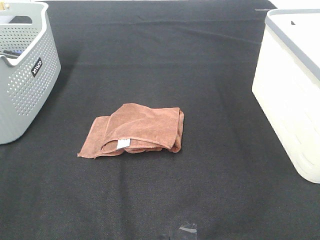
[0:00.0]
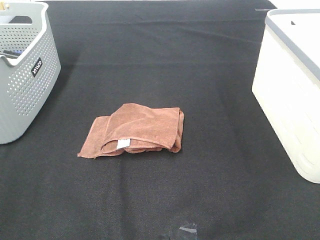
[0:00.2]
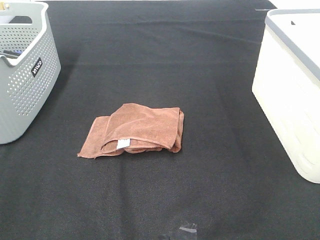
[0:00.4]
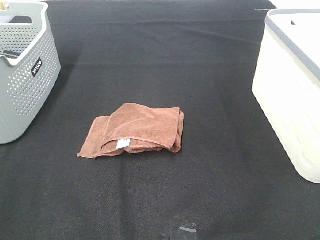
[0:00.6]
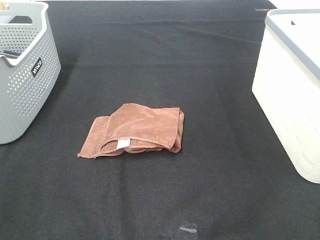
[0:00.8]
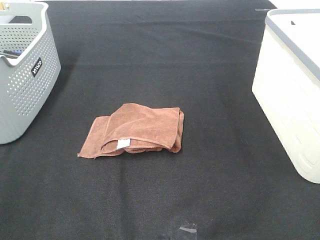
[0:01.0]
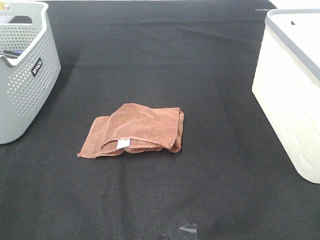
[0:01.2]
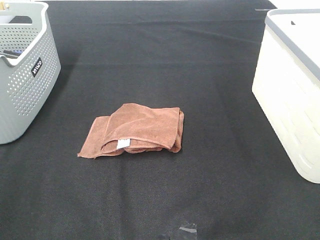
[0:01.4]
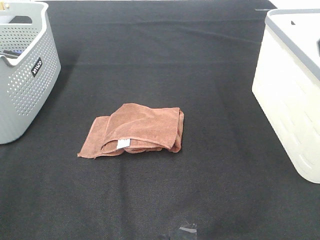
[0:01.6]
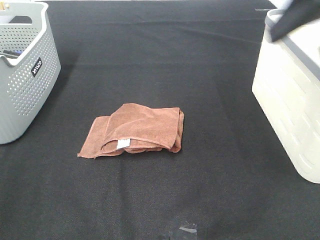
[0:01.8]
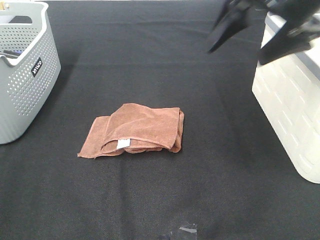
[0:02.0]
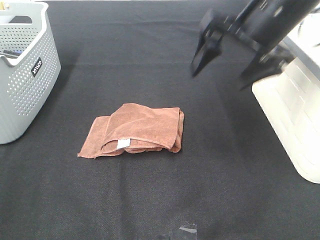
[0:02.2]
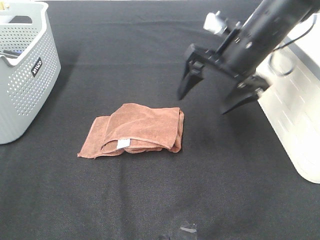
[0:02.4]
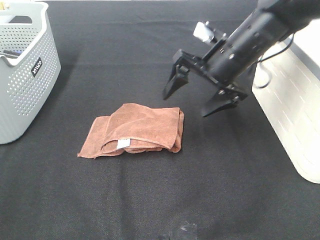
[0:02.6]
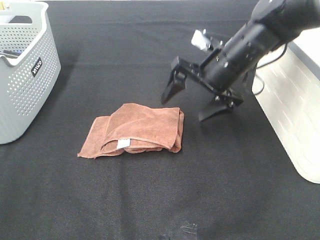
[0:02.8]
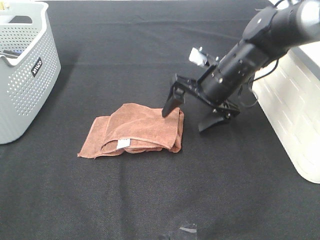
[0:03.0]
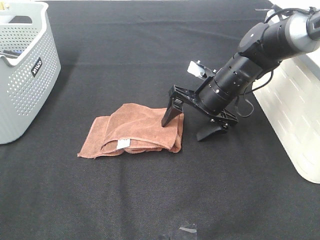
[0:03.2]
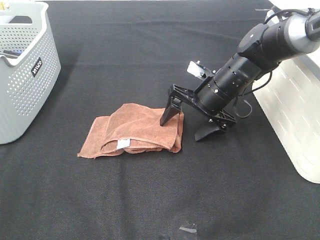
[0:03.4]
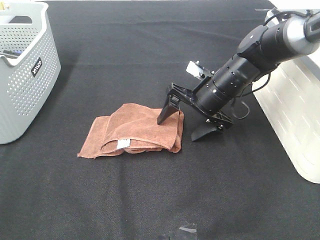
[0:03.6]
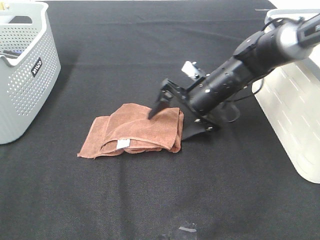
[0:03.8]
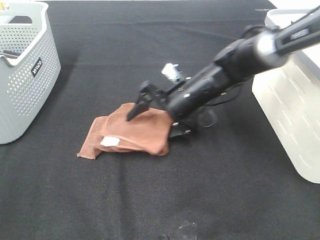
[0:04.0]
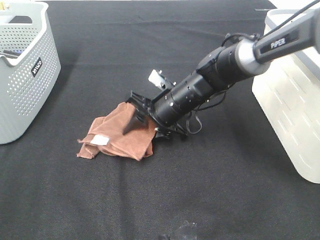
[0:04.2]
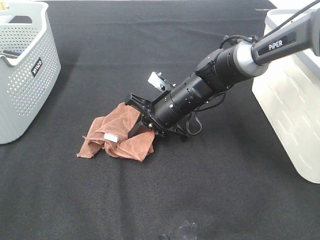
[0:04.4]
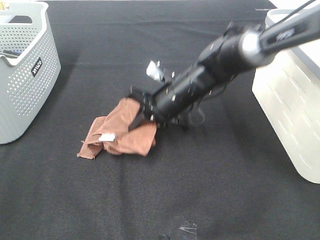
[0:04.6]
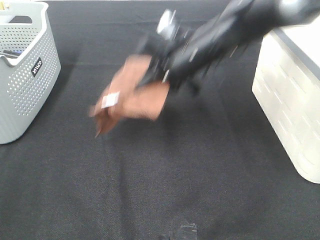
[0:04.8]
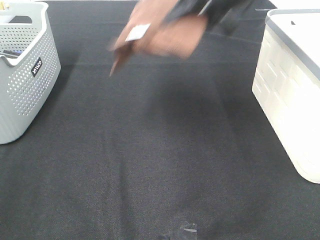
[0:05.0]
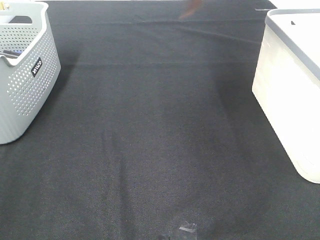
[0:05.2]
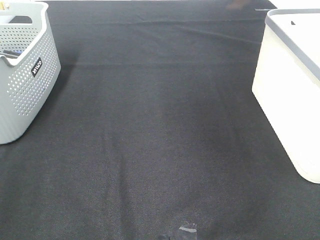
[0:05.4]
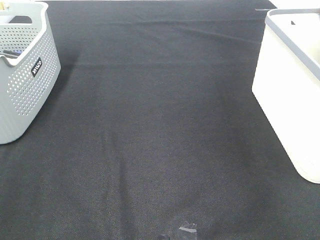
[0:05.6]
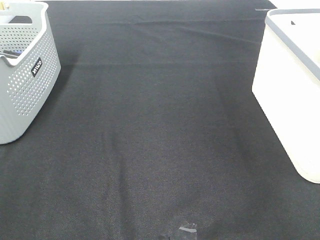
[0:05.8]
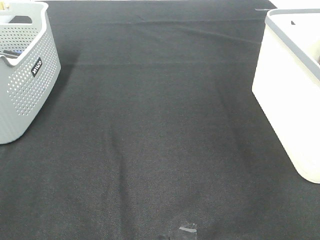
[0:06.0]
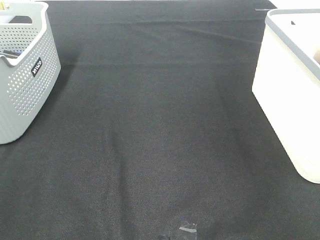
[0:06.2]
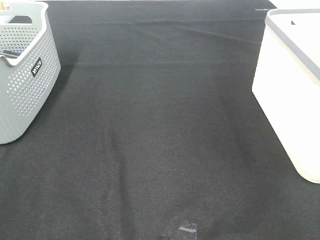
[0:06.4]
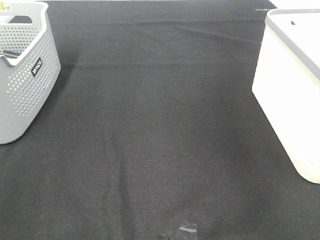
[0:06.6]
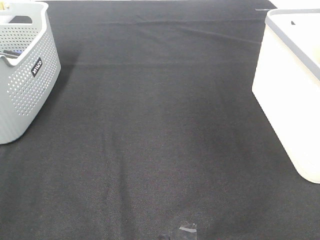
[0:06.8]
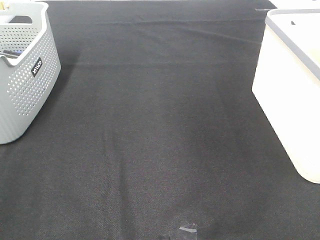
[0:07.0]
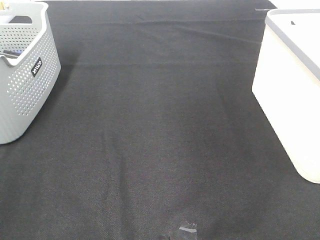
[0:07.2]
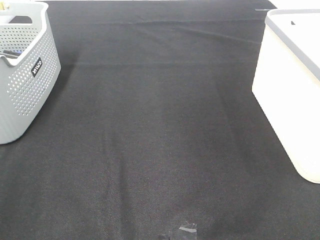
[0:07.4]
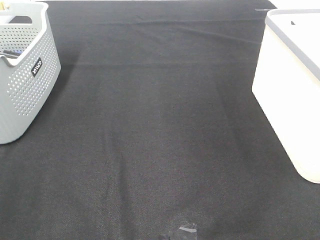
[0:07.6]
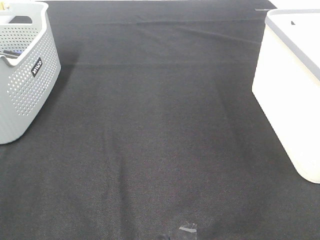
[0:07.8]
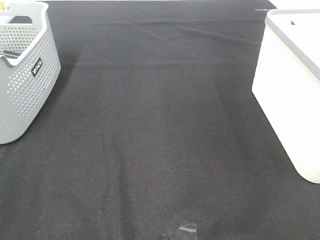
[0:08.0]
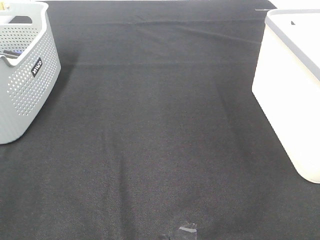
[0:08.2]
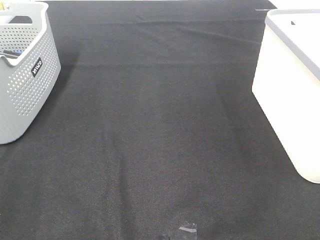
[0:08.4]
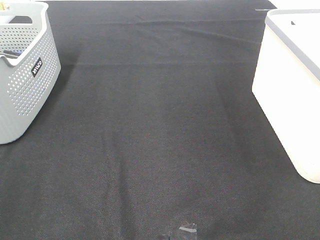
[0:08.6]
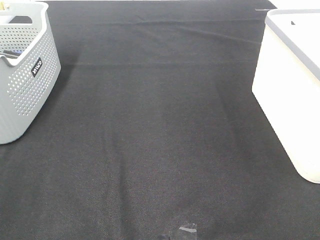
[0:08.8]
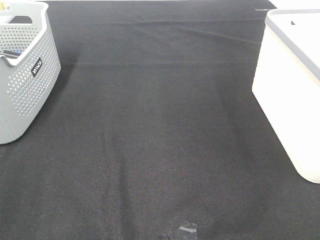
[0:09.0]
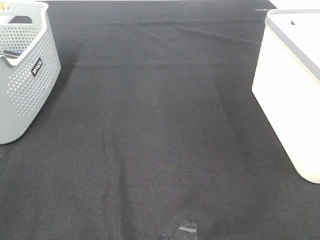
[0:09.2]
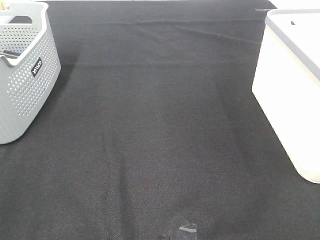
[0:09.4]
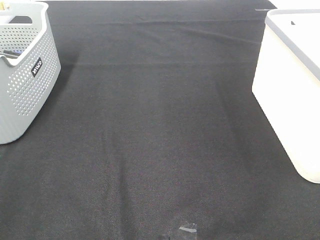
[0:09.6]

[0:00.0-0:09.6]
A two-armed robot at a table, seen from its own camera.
Step, 0:00.0 to 0:04.4: Right hand: grab the folded brown towel.
Step, 0:04.6 to 0:06.6: Right hand: place the brown towel in right basket.
0:01.6 to 0:03.2: The right gripper goes about 35 cm downward, forward and to the left.
0:03.2 to 0:04.8: The right gripper shifts roughly 10 cm upward, and closes up.
0:04.8 to 0:06.4: The right gripper travels to the right by some 35 cm, and opens.

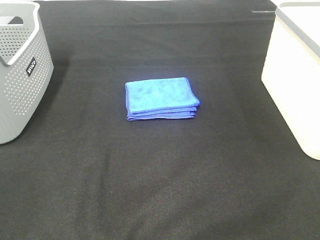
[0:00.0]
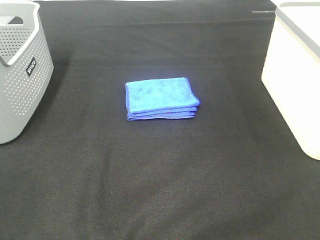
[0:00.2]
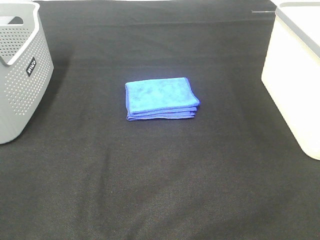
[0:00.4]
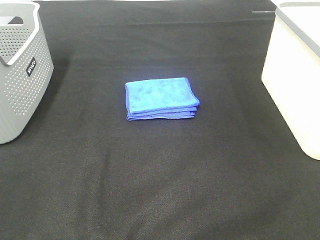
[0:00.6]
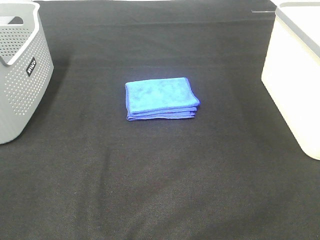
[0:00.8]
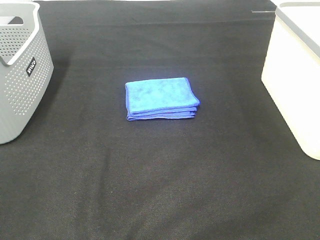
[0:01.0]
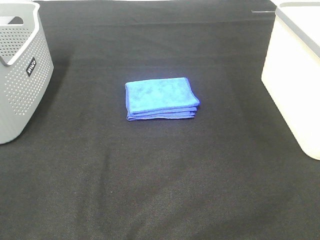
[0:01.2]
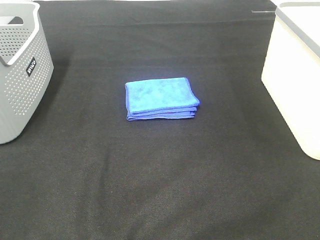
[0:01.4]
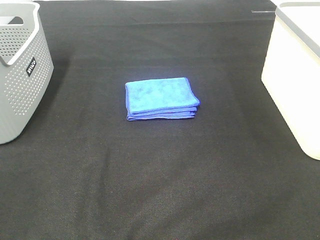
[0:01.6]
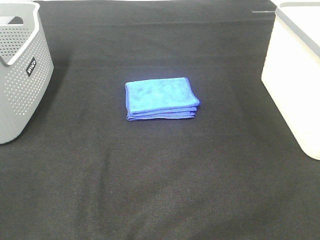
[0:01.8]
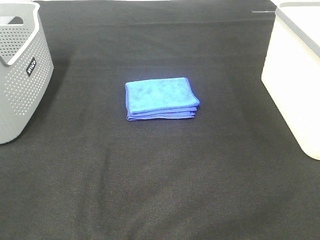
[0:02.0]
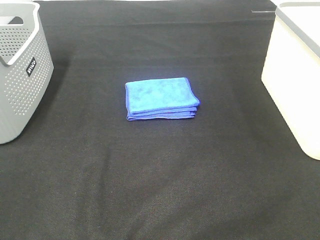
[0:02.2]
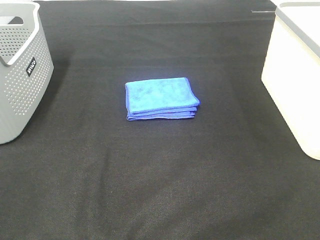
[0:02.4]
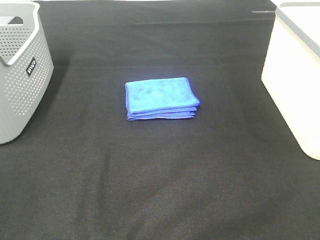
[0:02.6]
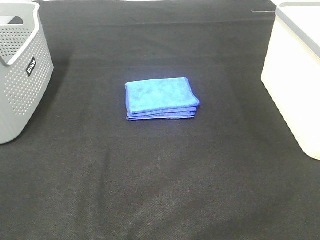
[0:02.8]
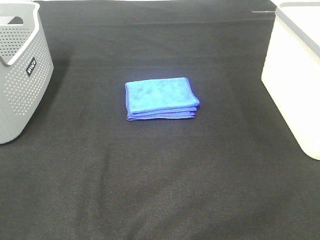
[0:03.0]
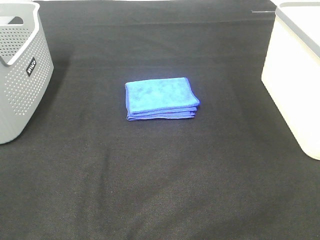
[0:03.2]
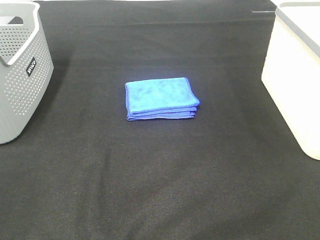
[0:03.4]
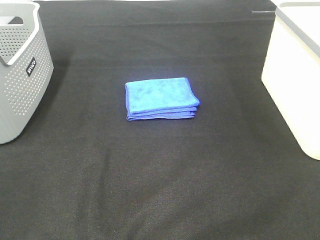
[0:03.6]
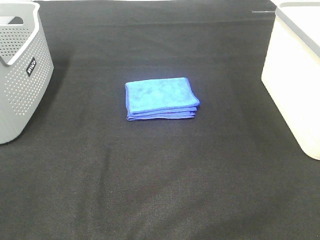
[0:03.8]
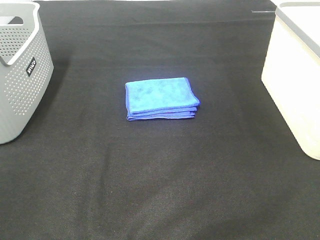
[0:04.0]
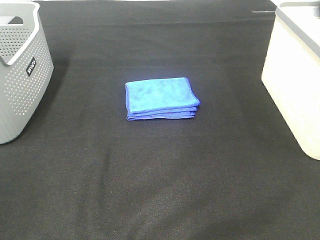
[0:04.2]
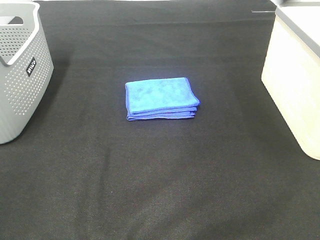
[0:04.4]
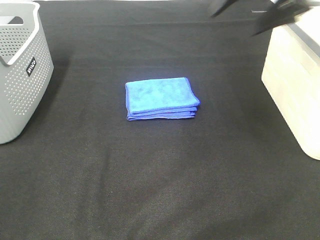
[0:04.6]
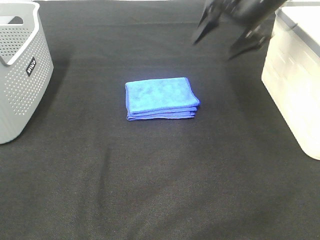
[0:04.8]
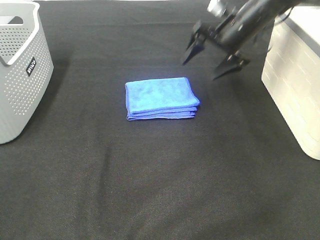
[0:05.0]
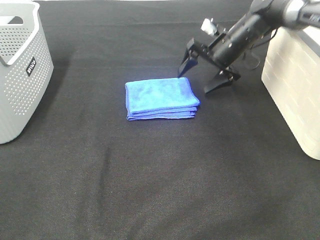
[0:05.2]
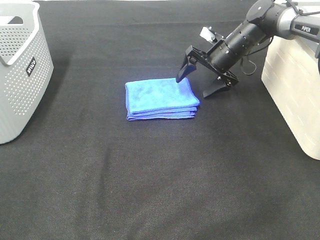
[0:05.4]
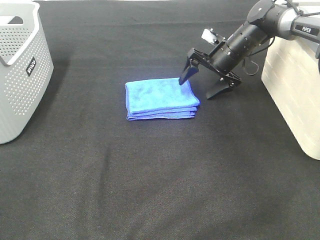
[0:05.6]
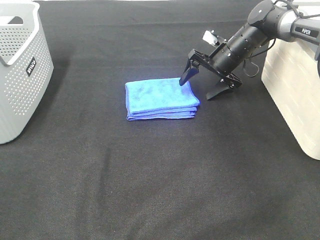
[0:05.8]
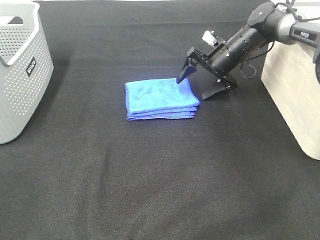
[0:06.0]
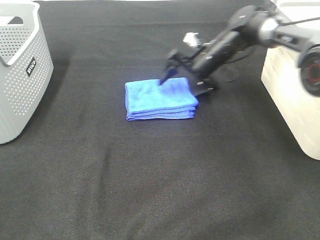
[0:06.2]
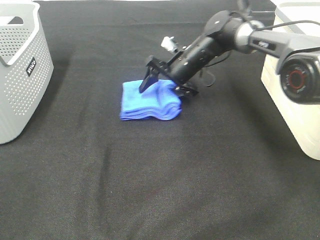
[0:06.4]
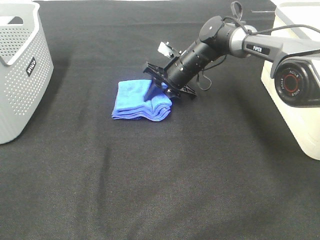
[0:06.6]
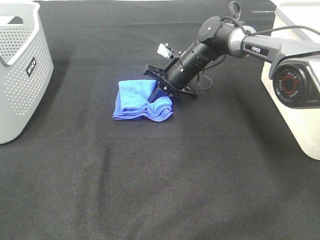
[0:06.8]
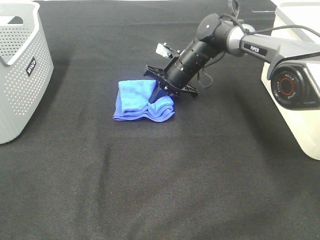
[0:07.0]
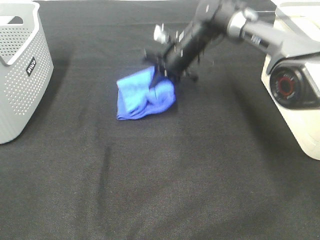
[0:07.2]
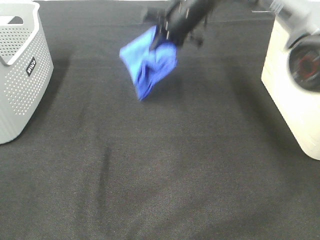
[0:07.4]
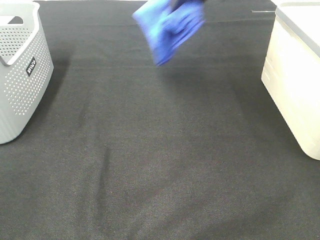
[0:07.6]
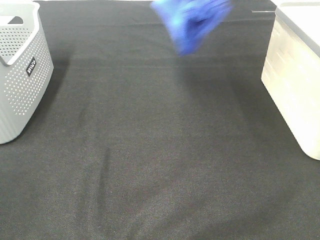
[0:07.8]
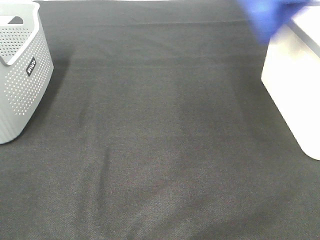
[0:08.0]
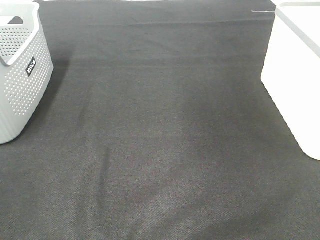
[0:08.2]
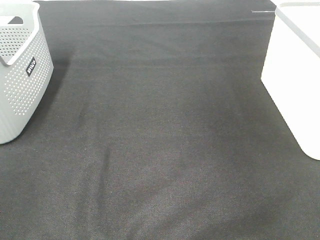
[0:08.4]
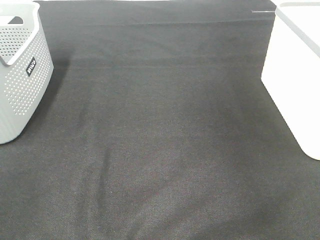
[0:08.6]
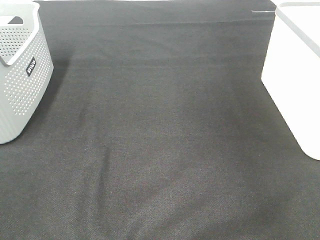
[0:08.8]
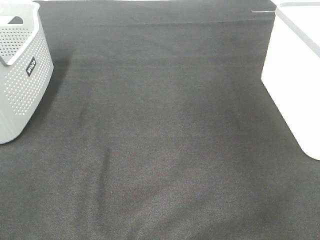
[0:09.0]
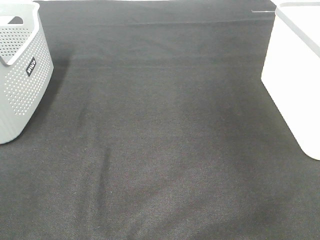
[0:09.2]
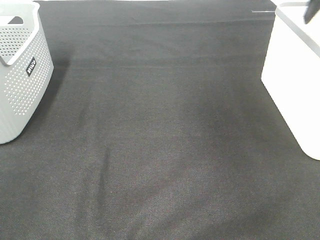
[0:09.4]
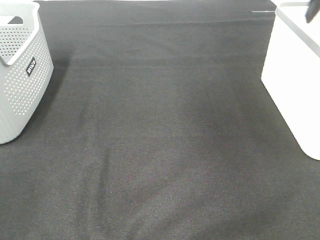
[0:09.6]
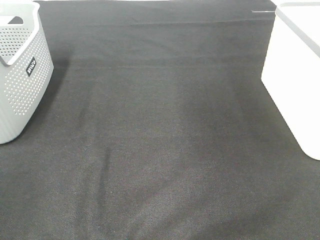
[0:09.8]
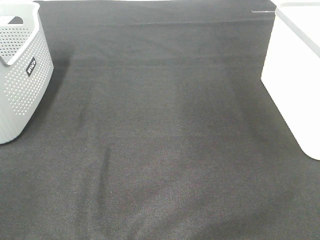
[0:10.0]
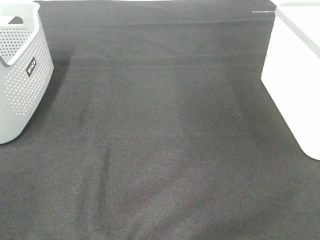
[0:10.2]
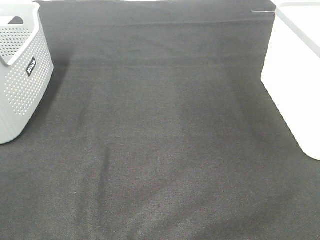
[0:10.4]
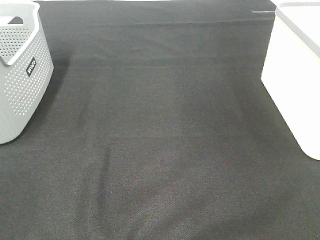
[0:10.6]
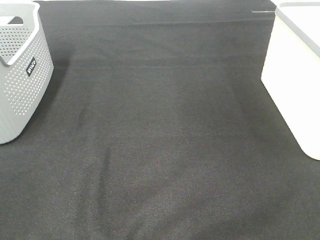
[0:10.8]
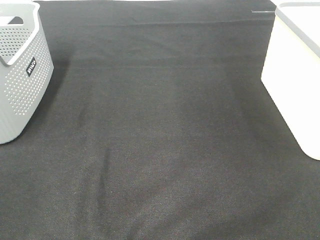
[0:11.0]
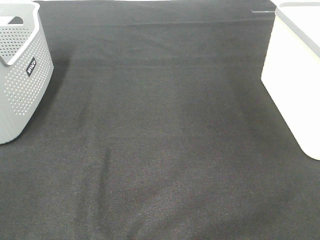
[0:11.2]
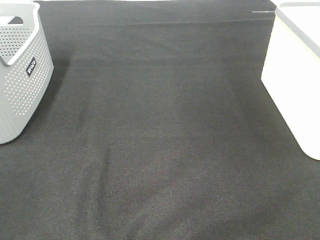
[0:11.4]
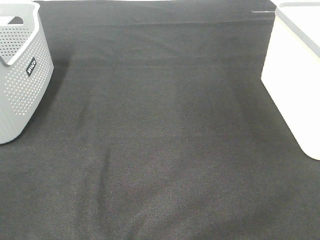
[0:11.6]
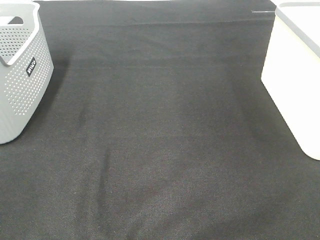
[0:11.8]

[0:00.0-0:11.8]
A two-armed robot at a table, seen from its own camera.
Step, 0:00.0 to 0:07.0: Right hand: grab the folded blue towel.
Step, 0:07.2 to 0:09.0: Right hand: place the blue towel in right basket.
0:00.0 to 0:03.0: Neither gripper changes place.
0:04.4 to 0:06.0: The right gripper shifts about 35 cm downward and forward.
0:06.0 to 0:07.4: The right gripper is displaced upward and to the left by some 15 cm, and closes.
0:07.4 to 0:08.8: The right gripper goes roughly 30 cm to the right.

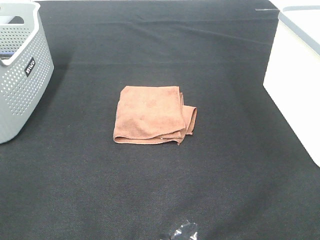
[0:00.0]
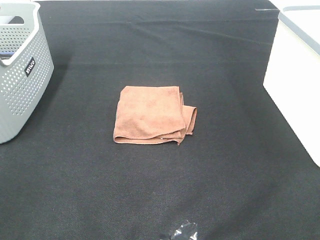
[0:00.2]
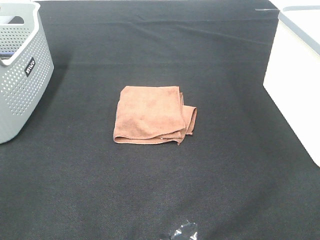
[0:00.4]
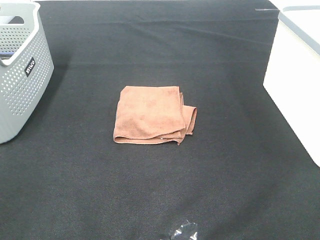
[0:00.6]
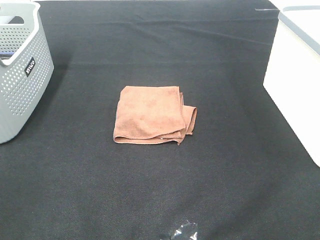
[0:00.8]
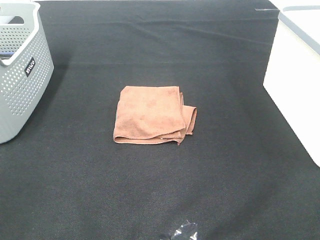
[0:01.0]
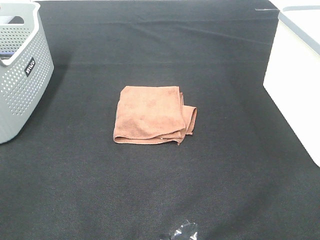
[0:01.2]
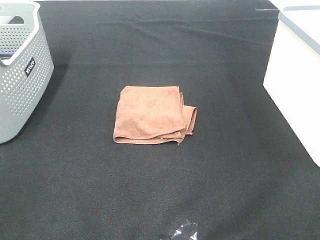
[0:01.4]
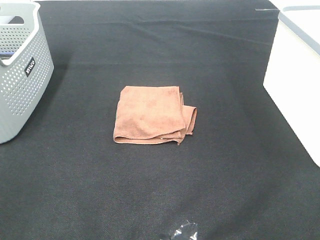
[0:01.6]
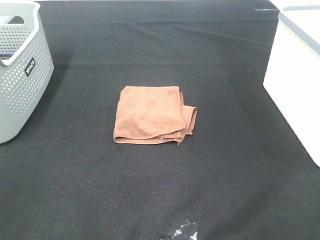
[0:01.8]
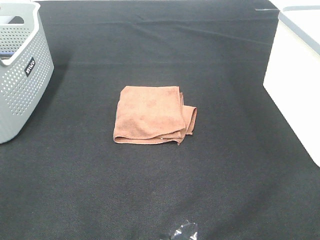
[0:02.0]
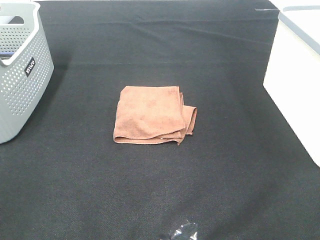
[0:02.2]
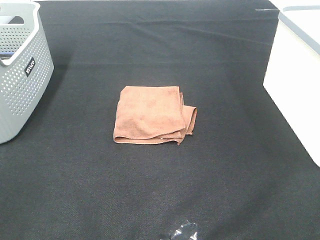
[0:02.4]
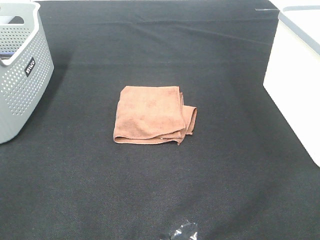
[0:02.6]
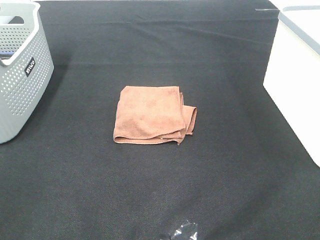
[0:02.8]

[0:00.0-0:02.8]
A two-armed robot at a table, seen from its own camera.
0:00.0 to 0:02.8: The two grippers keep their place.
